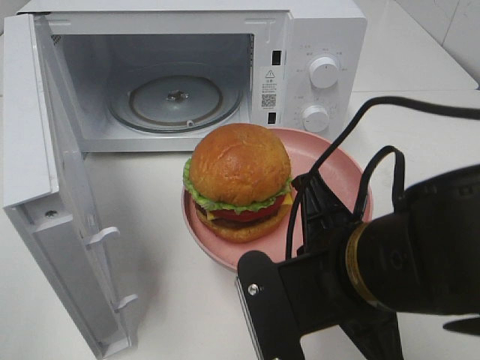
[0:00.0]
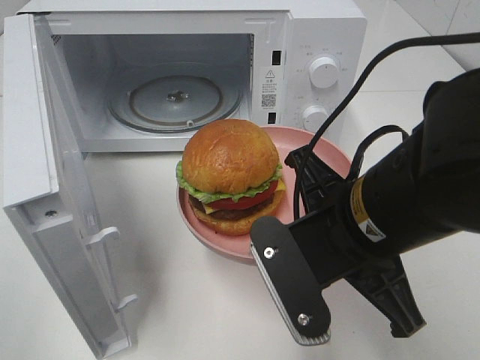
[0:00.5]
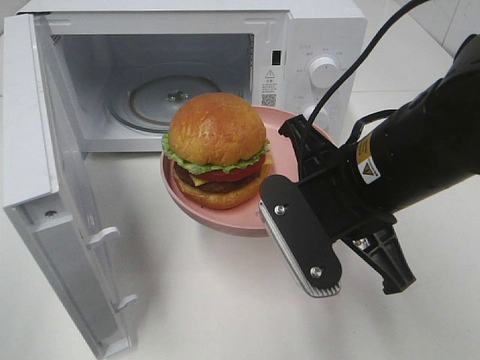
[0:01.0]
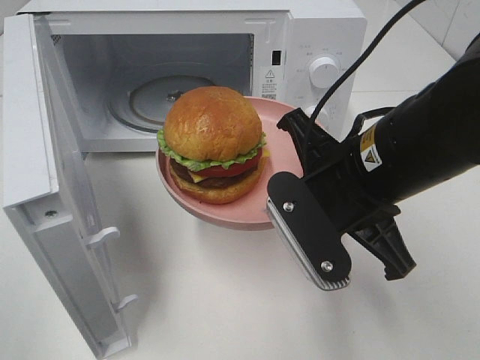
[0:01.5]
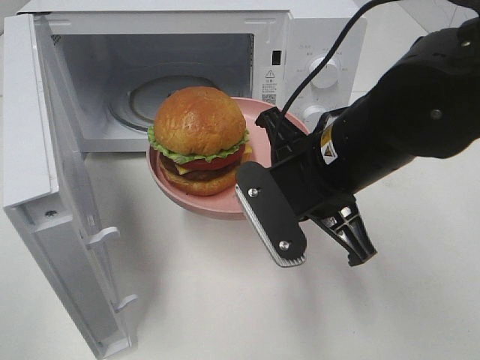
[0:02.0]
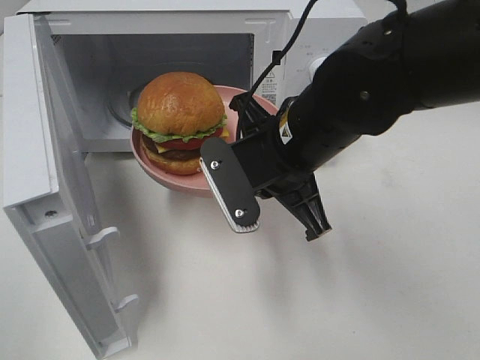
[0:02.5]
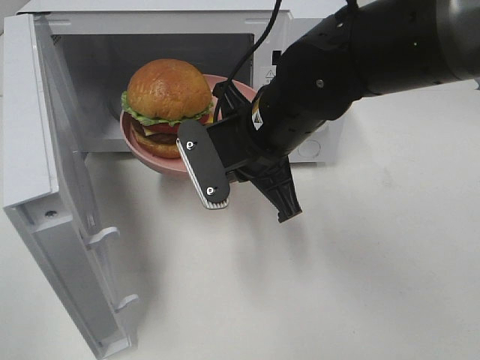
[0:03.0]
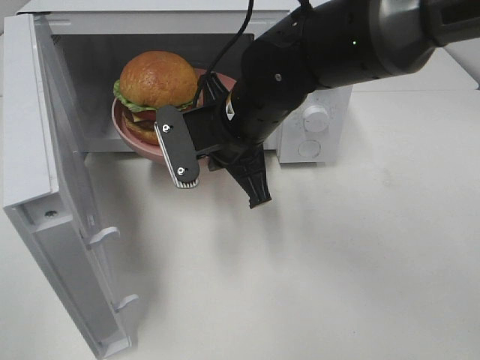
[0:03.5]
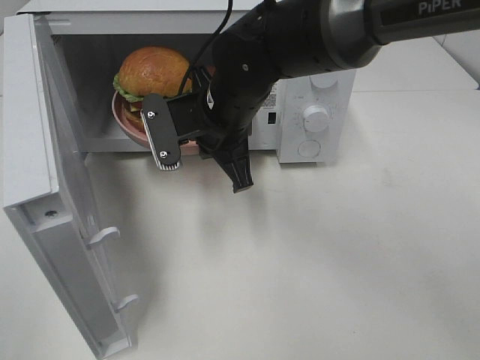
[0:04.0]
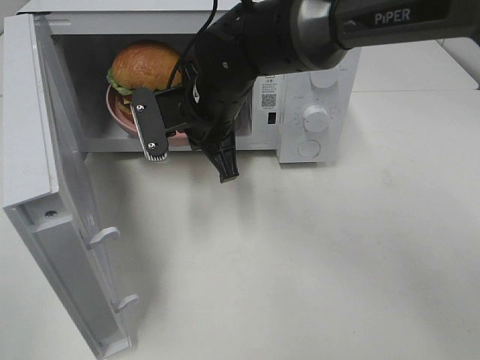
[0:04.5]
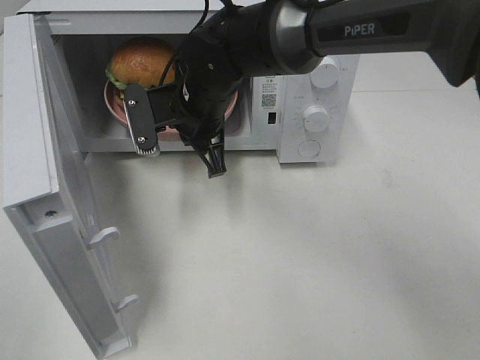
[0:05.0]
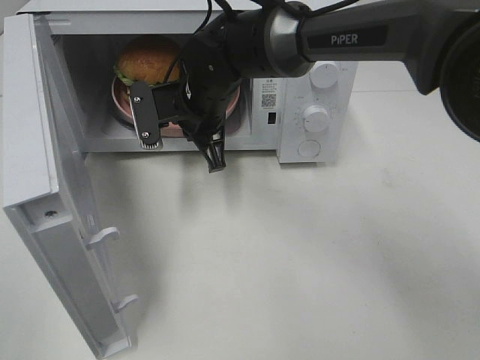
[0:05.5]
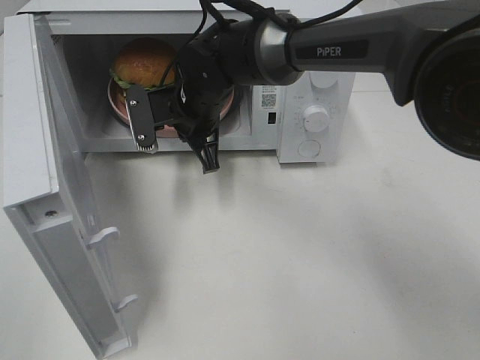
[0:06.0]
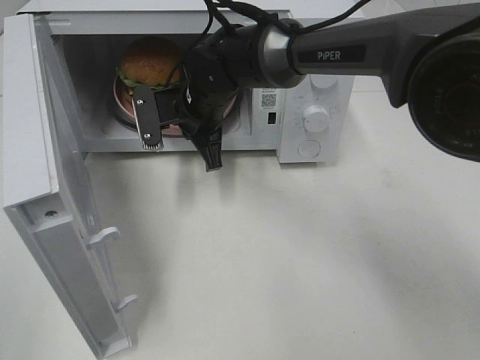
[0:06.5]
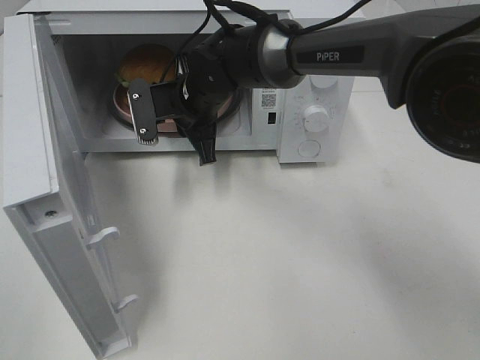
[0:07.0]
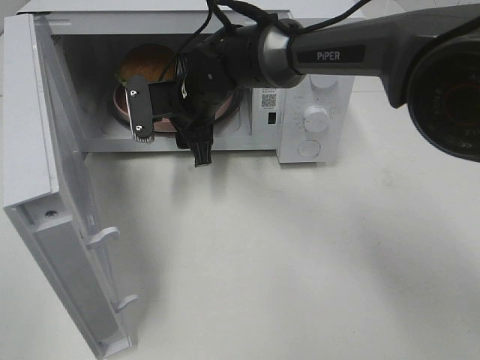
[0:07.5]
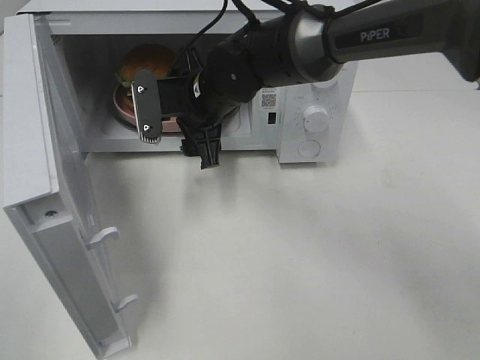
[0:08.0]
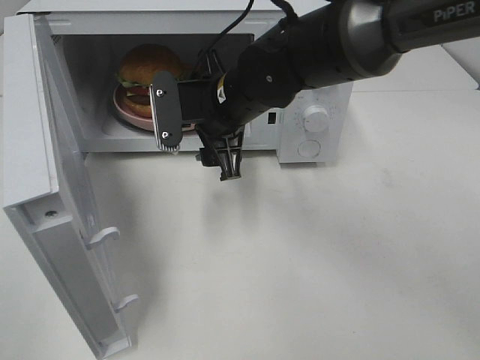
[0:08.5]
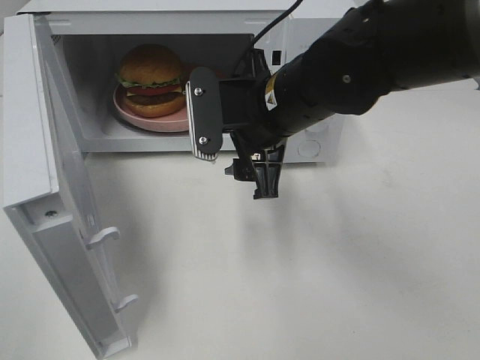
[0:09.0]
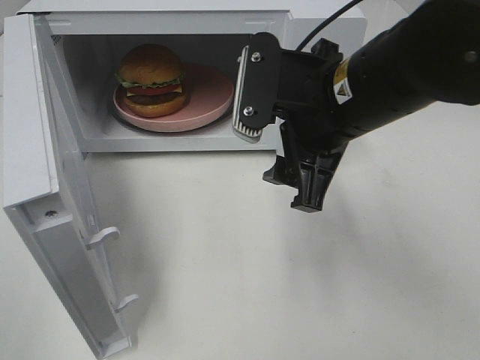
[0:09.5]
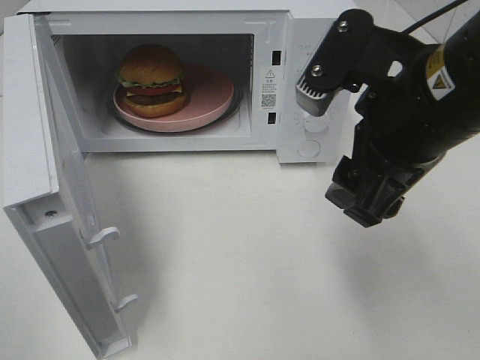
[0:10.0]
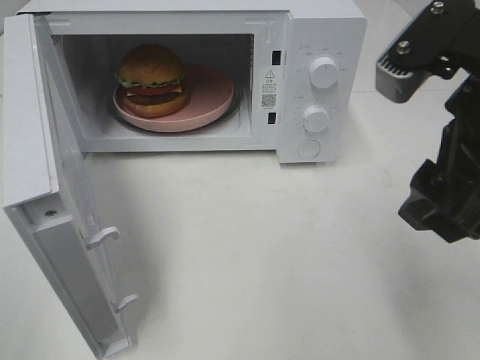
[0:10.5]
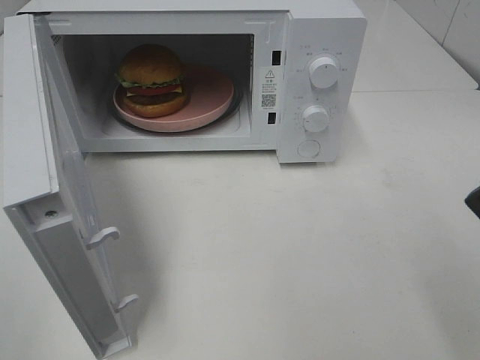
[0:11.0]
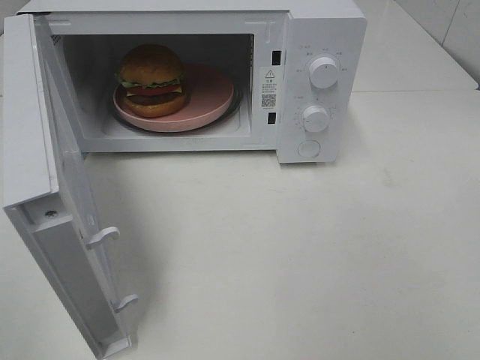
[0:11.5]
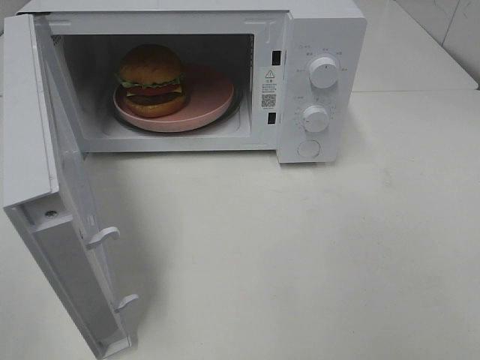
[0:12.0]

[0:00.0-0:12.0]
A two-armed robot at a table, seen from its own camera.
Task of the whole recording: Heat the burger.
Step, 0:00.0 to 0:07.0: Right hand: place the plate in the microwave.
0:00.0 to 0:02.0: The right gripper moves forward, some 10 cm.
0:02.0 to 0:04.0: The right gripper shifts approximately 15 cm forward and to the left.
0:04.0 to 0:06.0: The right gripper travels forward by approximately 5 cm.
0:06.0 to 0:08.0: The right gripper opens its fingers.
0:08.0 to 0:10.0: The right gripper moves backward, to the right and upward, approximately 25 cm.
0:10.0 to 0:12.0: The right gripper is displaced backward and to the right by about 25 cm.

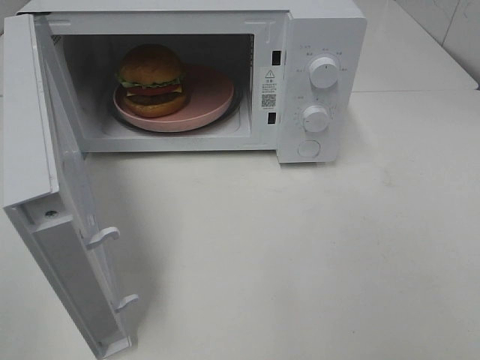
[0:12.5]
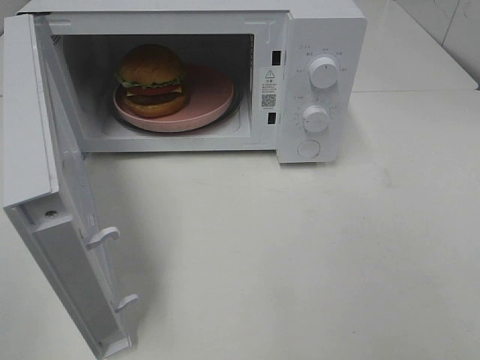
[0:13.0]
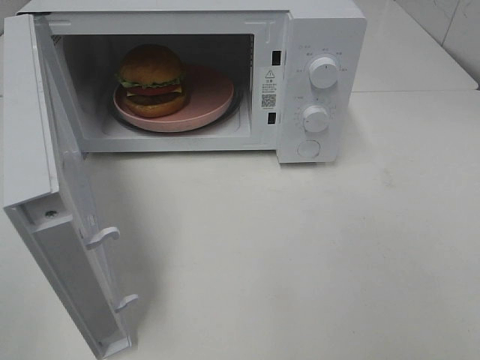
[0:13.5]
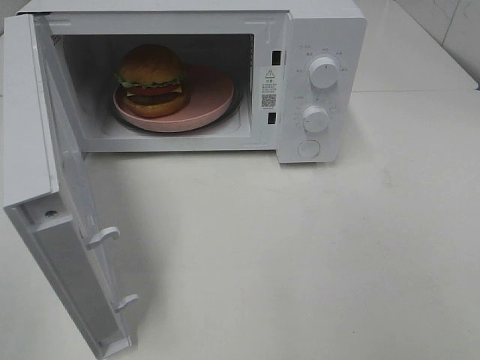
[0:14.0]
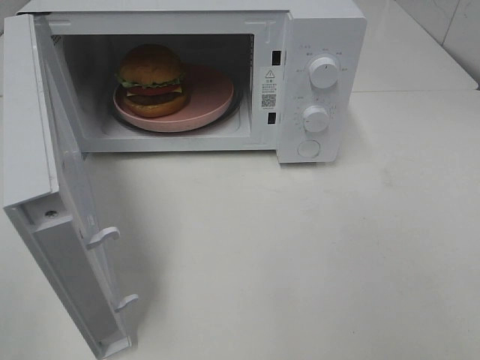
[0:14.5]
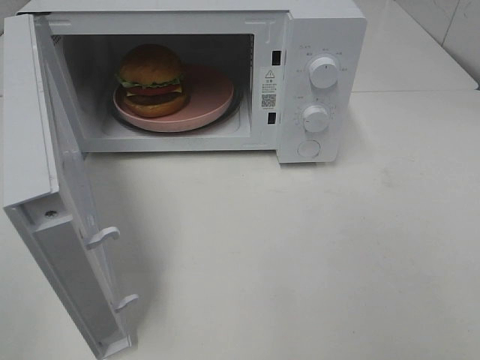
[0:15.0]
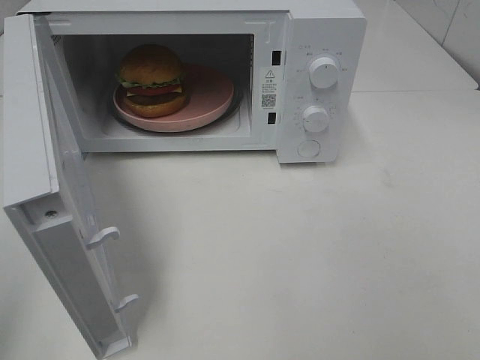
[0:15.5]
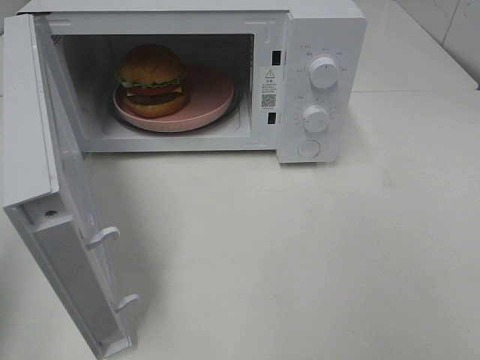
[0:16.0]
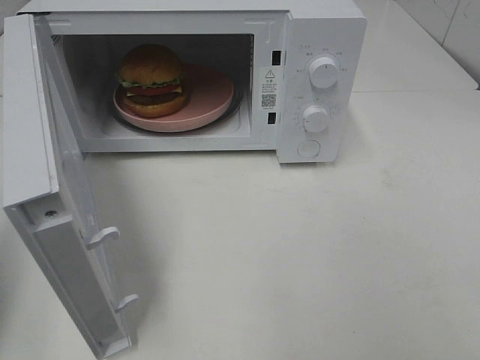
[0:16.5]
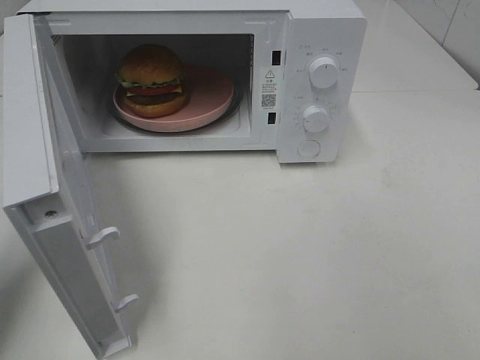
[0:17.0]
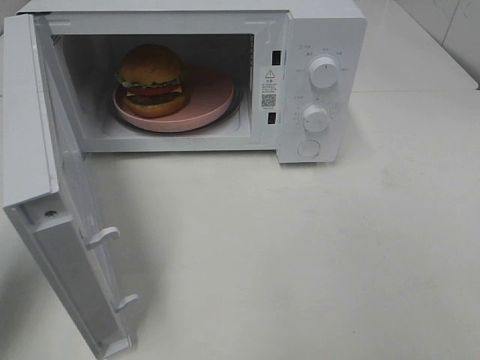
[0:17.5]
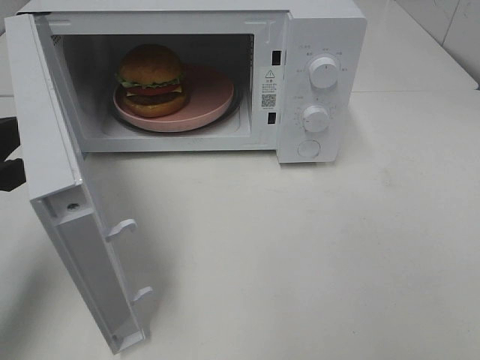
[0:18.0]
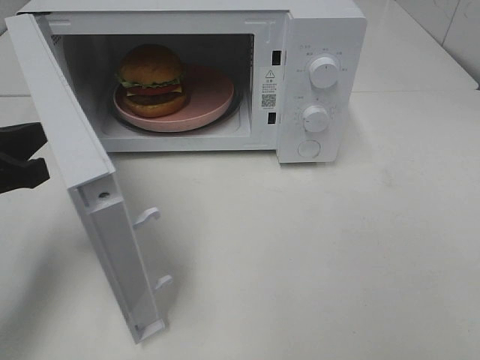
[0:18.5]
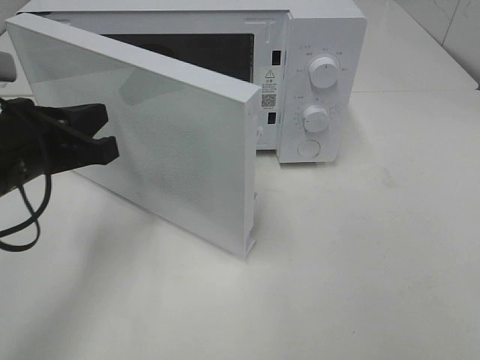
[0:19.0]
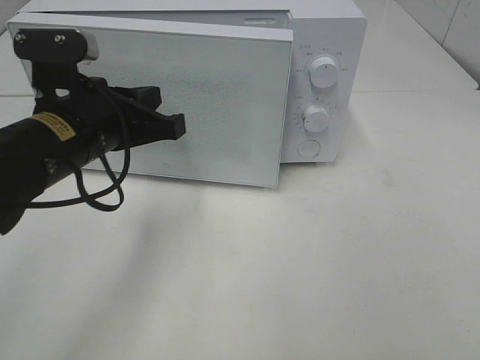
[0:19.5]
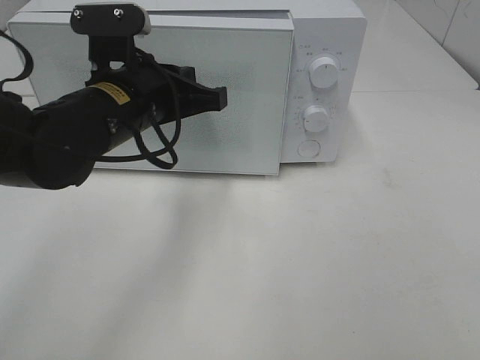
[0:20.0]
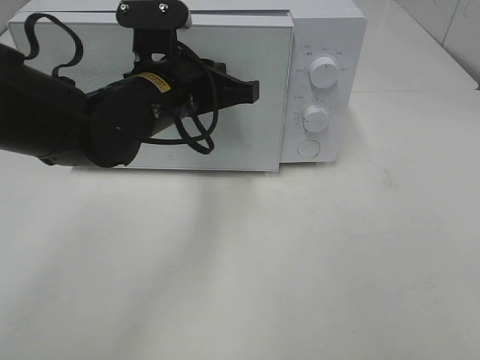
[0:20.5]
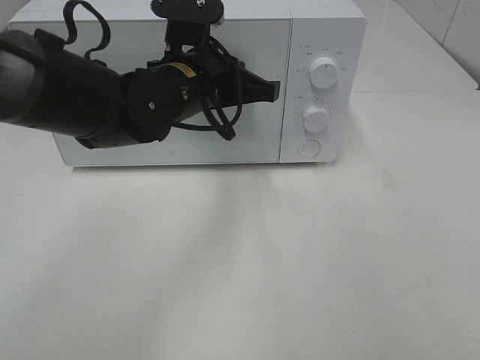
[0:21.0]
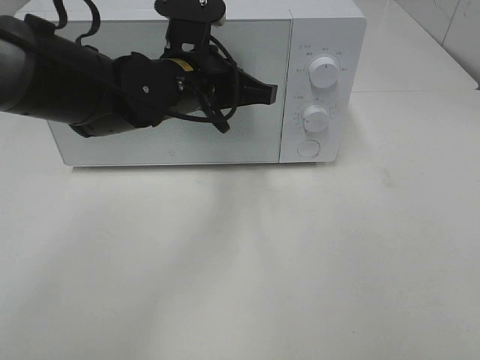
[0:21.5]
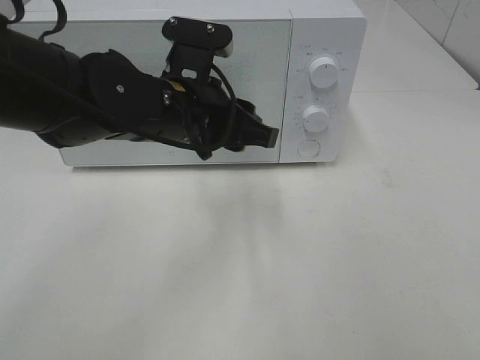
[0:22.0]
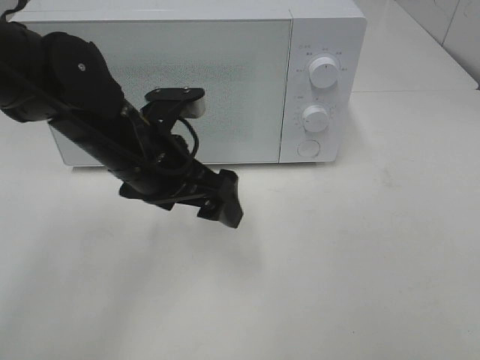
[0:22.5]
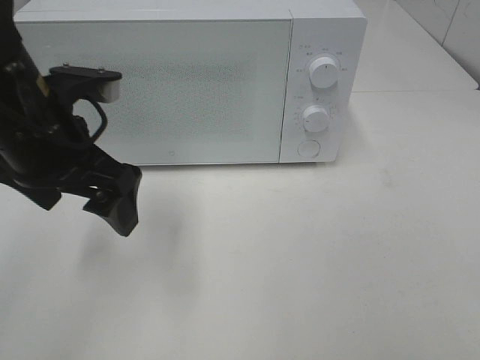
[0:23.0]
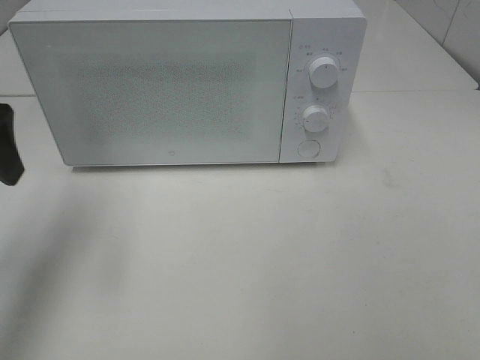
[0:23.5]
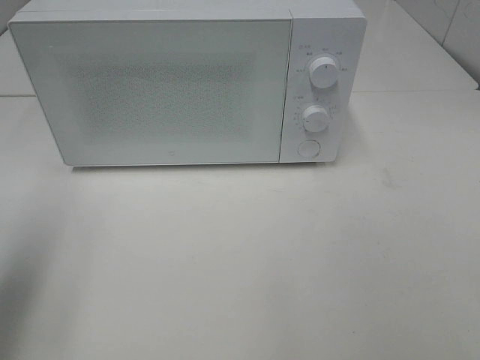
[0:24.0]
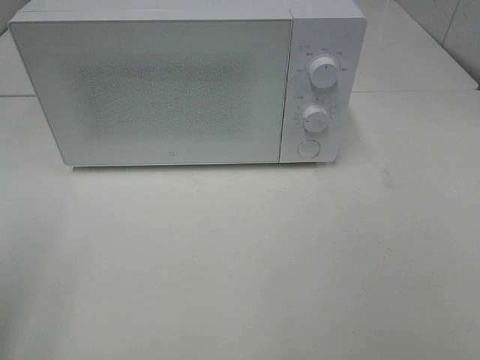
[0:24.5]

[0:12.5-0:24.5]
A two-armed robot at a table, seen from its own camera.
Task of the whole recording: Heat the burger.
Step, 0:12.5 to 0:21.5: Left hand: close the microwave door.
0:14.5 to 0:16.5: The left gripper is displaced forward by some 15 cm, and closes its fingers.
0:16.5 to 0:18.5: The left gripper goes some 15 cm to the right, forward and downward.
0:18.5 to 0:20.5: The left gripper shifts roughly 20 cm to the right and forward.
0:20.5 to 0:22.5: The left gripper changes place by approximately 5 cm, and opens its fingers.
0:22.5 to 0:24.5: The left gripper goes approximately 30 cm to the left, backward and upward.

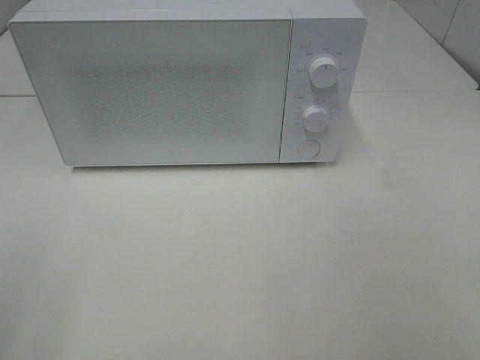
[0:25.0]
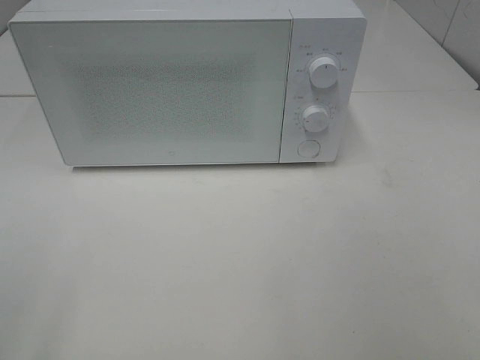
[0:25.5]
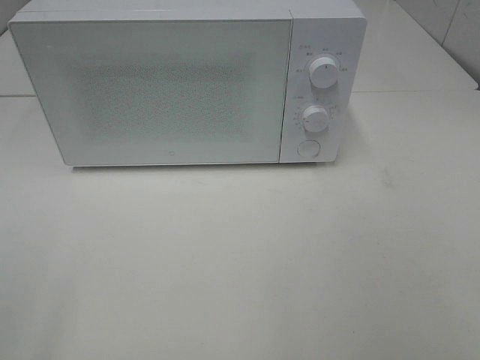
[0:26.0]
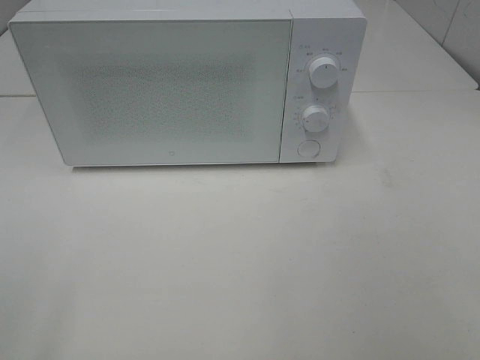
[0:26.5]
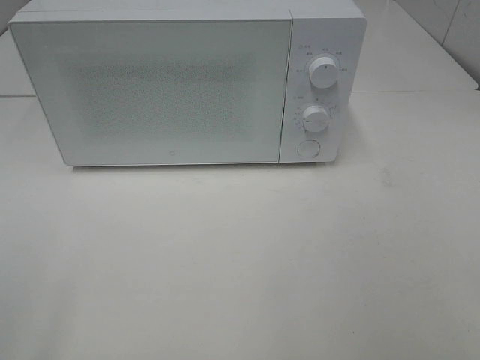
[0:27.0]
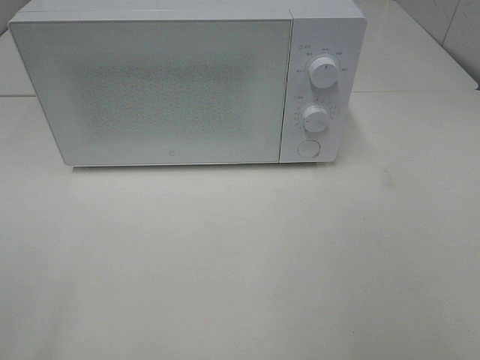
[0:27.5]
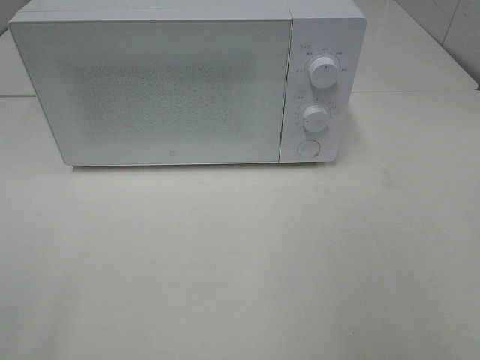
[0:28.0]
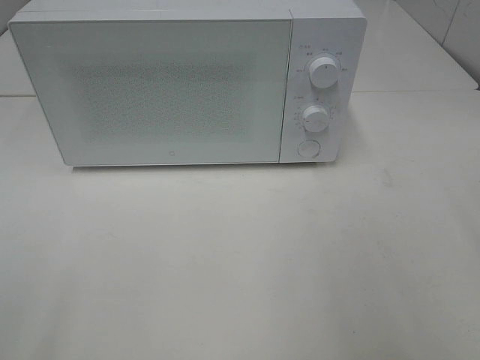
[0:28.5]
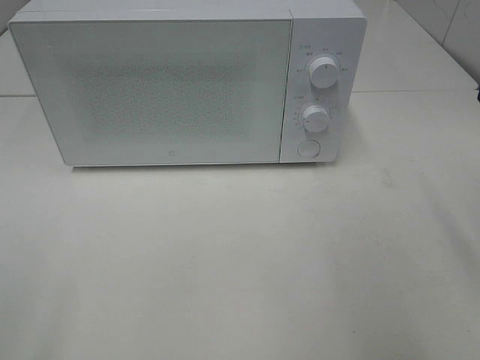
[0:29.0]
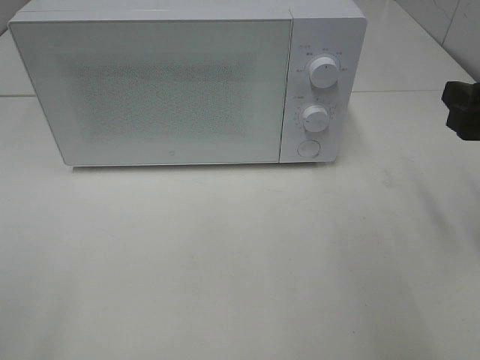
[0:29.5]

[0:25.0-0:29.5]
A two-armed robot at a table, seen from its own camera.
Task of the whole recording: Heat the burger.
0:27.0 to 0:29.5: The right gripper moves forward, about 20 cm.